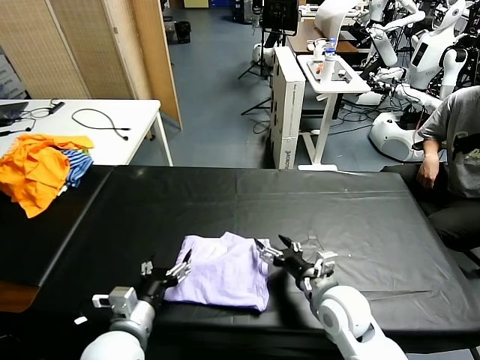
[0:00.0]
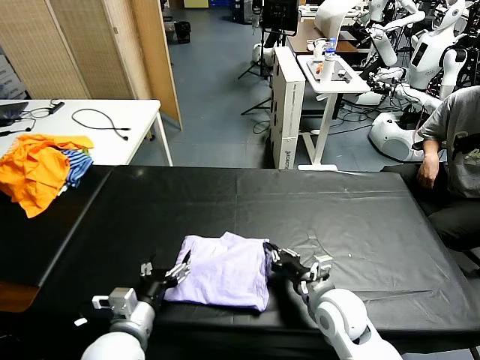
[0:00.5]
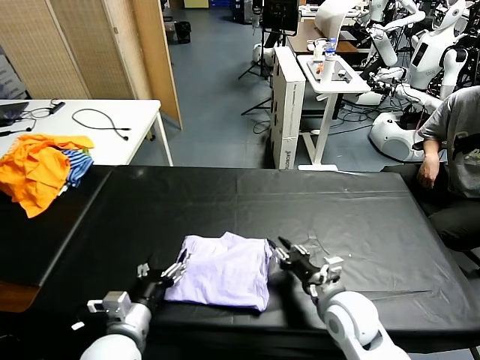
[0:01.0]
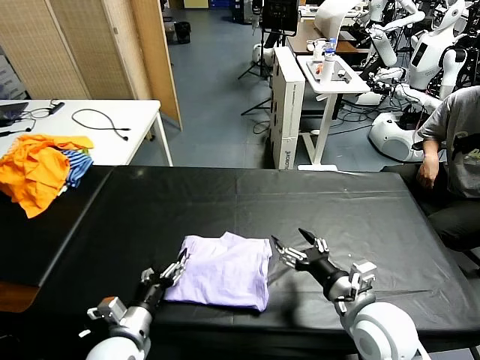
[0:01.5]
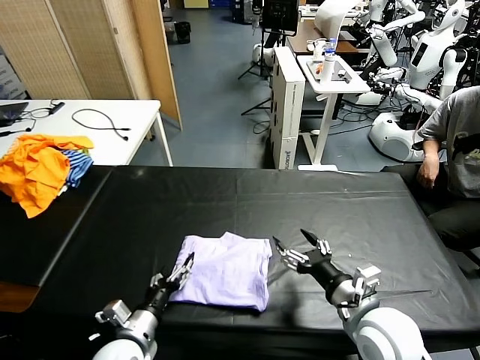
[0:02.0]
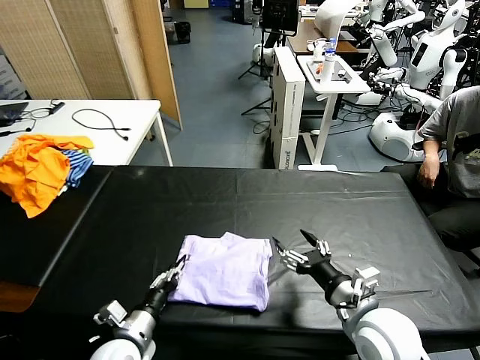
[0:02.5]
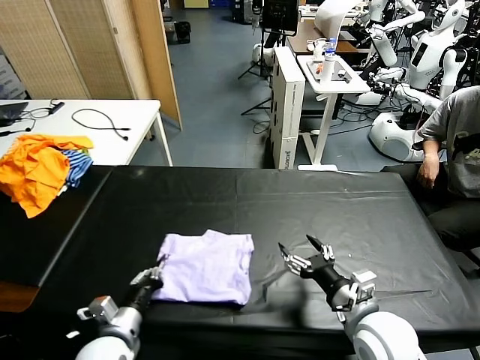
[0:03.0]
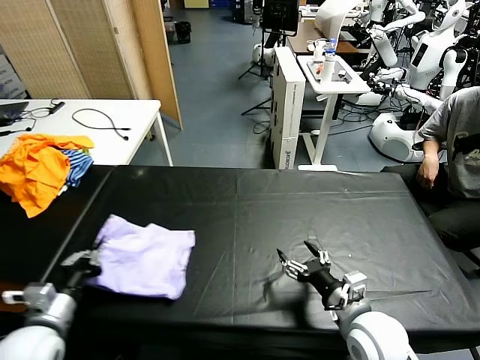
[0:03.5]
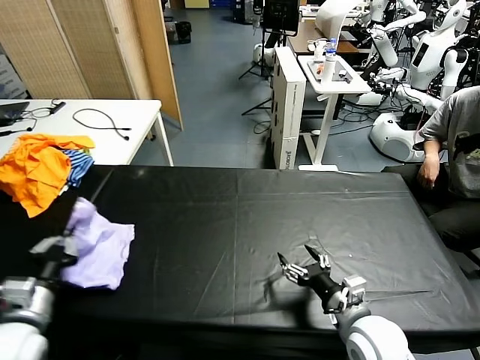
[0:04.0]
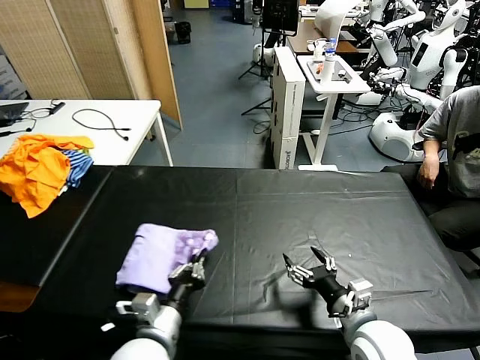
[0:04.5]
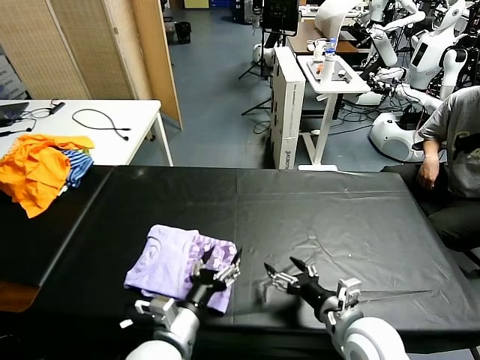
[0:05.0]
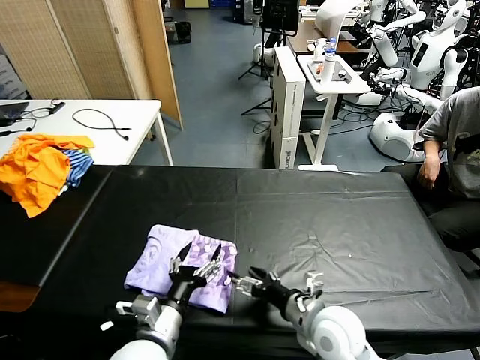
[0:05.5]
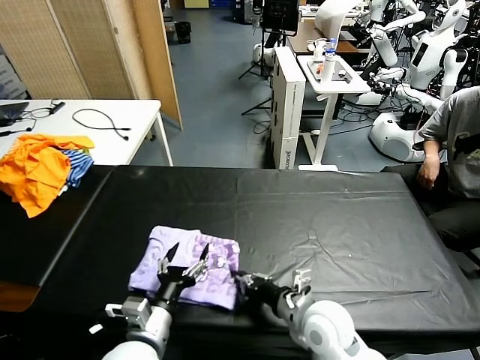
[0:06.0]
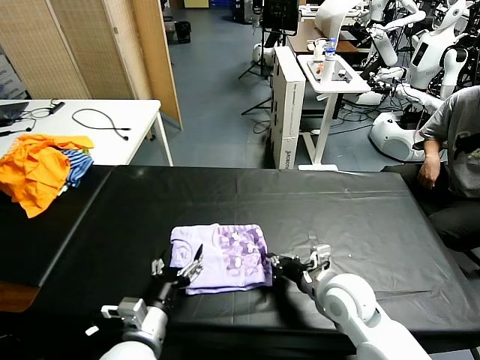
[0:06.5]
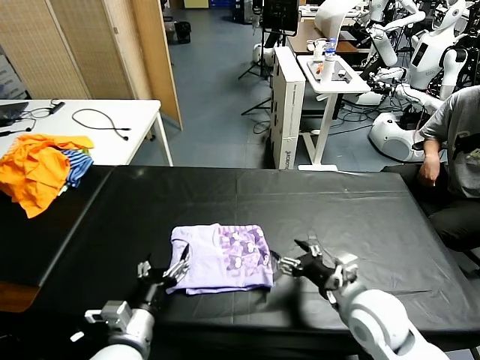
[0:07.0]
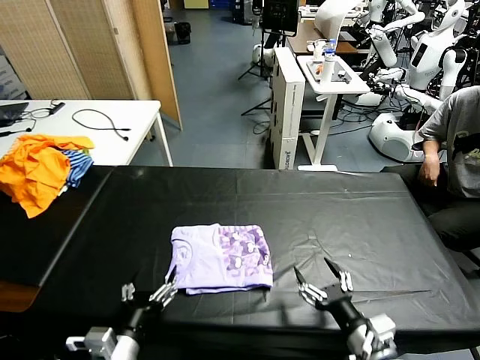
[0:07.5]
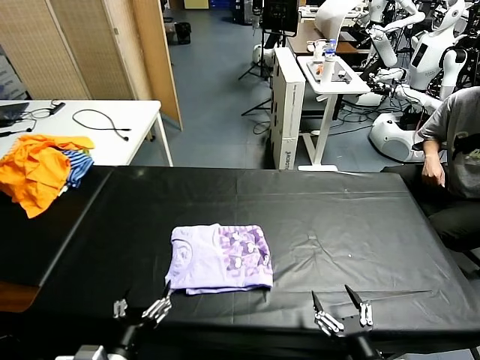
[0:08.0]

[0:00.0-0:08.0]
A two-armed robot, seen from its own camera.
Task of the whole recording: fold and organize the clothes.
Step, 0:02.0 to 0:05.0: Flip the folded clothes over with left gripper.
Step, 0:05.5 to 0:06.5: Drag the clothes to the center of the table.
0:00.0 to 0:02.0: The left gripper shifts approximately 5 cm downward. Meanwhile the right gripper heads upward and backward, covering approximately 10 cm, and closes and opens again.
0:02.0 to 0:04.0: The left gripper travels upward and to the left by approximately 20 cm, and closes up.
0:04.0 to 0:06.0: The right gripper moves to the left, roughly 10 cm, and closes; the left gripper heads to the right, covering some 20 cm, and opens its fingers.
0:06.0 to 0:08.0: The left gripper travels backward by roughly 10 cm. Meanwhile the right gripper shifts roughly 20 cm backward and to the right, and opens up.
